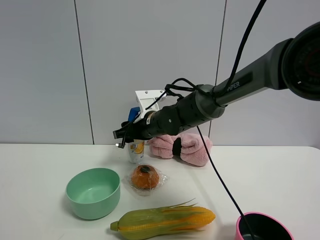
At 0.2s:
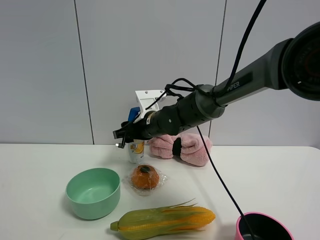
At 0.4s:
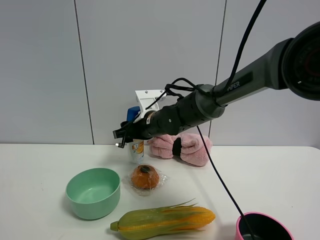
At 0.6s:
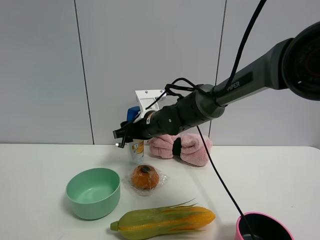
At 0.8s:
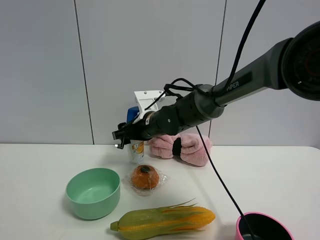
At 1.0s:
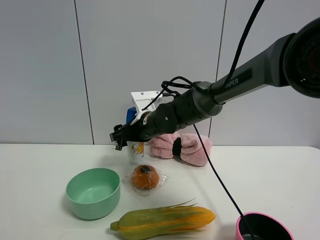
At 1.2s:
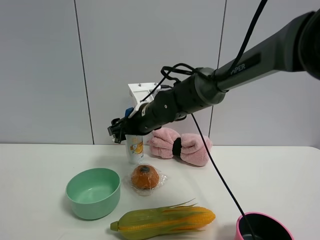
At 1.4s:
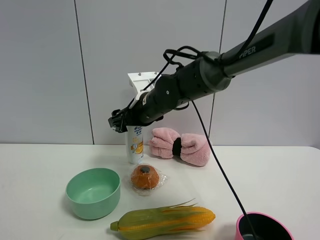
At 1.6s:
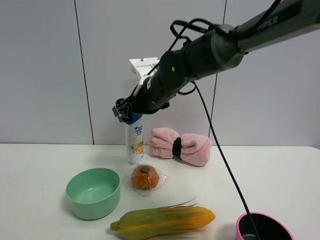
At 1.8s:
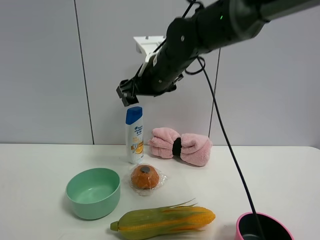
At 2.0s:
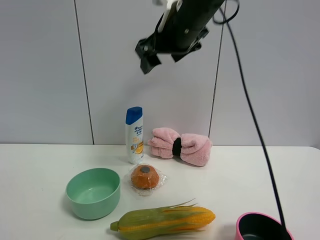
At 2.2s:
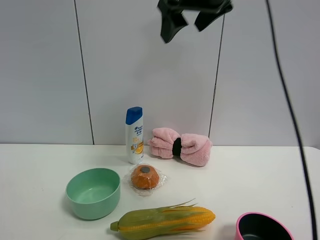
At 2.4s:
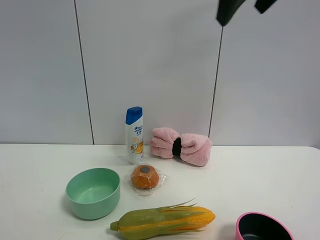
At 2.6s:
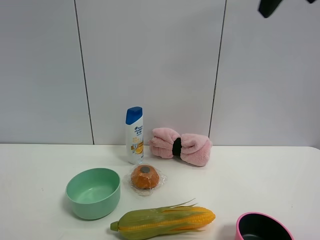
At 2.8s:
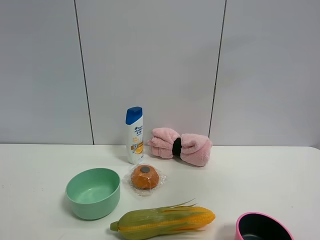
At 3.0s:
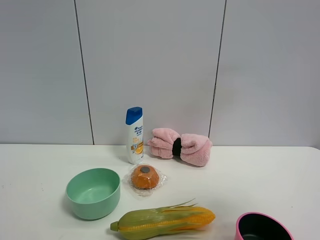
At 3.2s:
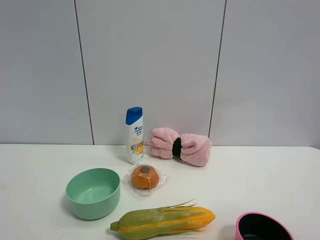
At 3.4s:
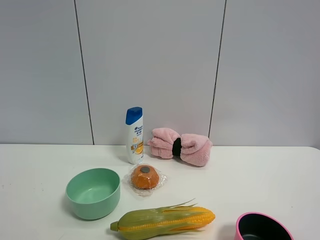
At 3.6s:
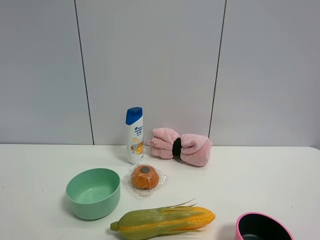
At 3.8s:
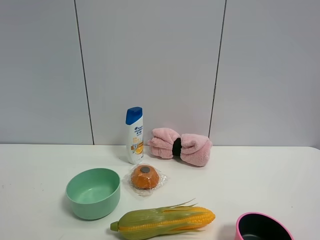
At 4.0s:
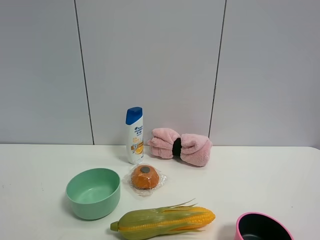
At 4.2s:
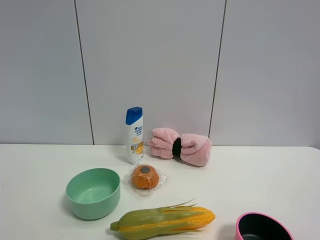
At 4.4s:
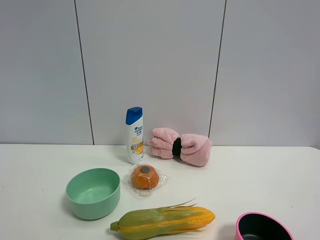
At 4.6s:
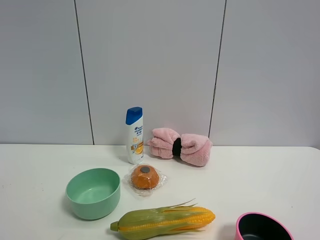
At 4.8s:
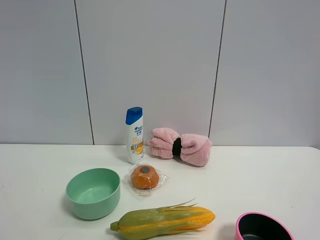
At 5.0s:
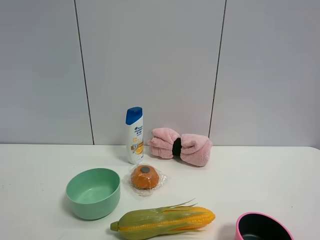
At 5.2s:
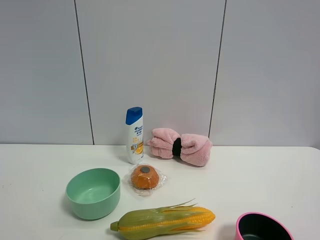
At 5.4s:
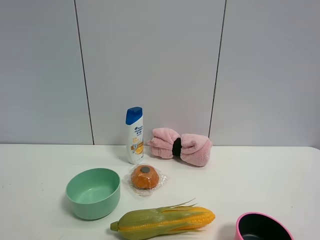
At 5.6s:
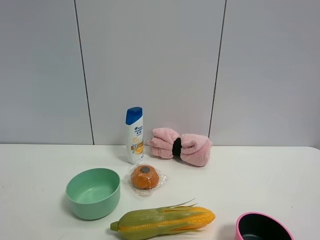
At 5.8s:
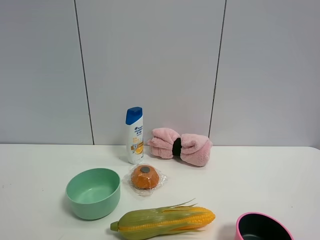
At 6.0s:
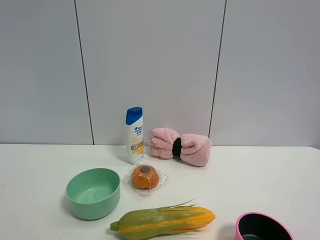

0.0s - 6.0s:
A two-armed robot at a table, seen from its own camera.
Task of the whole recording: the gripper move the object.
0.0s - 1.6s: The right gripper shifts roughly 10 cm upward, and opens up.
1.6s - 3.0s: The right gripper is displaced backward, to the right and upward by approximately 50 cm.
3.0s - 4.4s: The right gripper goes approximately 15 cm backward and downward.
4.4s - 6.0s: The two grippers keep their place.

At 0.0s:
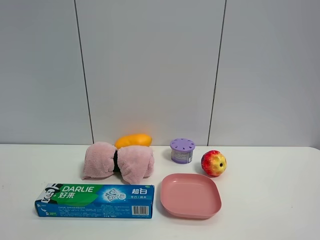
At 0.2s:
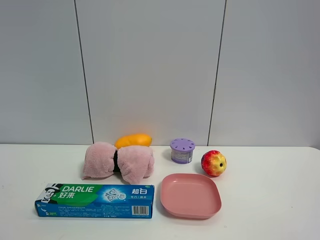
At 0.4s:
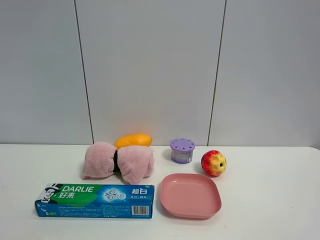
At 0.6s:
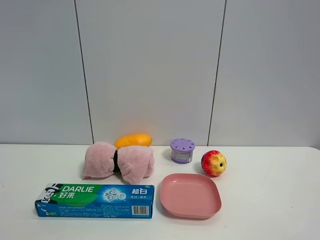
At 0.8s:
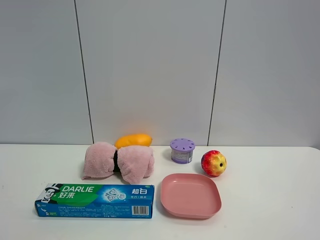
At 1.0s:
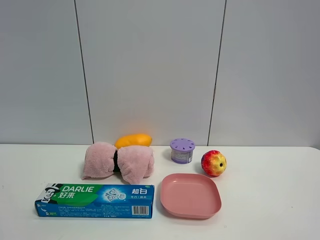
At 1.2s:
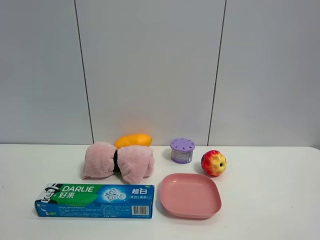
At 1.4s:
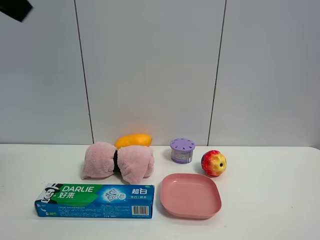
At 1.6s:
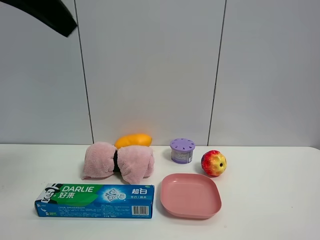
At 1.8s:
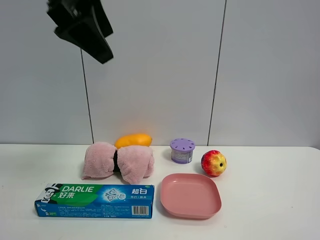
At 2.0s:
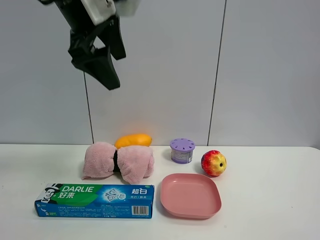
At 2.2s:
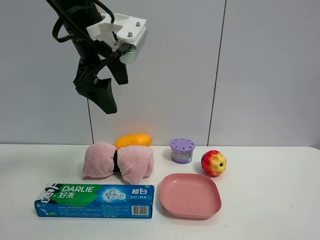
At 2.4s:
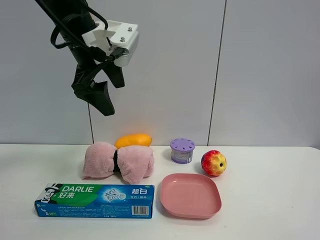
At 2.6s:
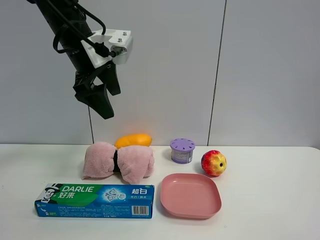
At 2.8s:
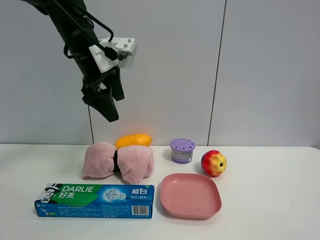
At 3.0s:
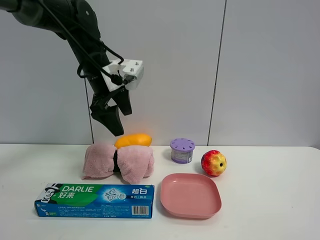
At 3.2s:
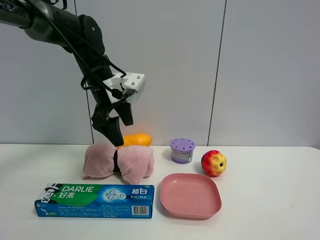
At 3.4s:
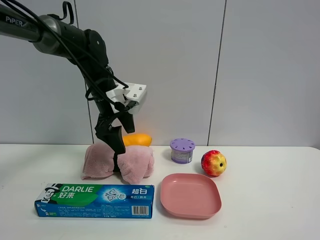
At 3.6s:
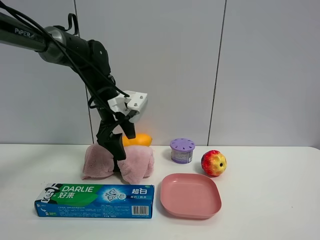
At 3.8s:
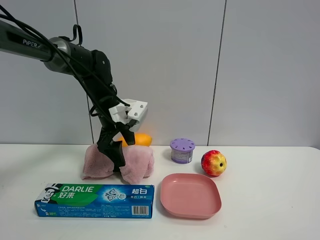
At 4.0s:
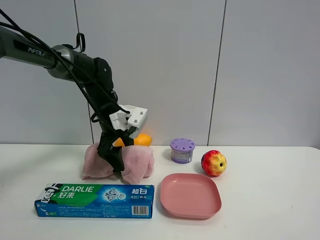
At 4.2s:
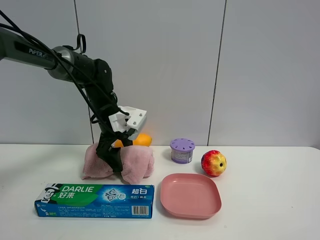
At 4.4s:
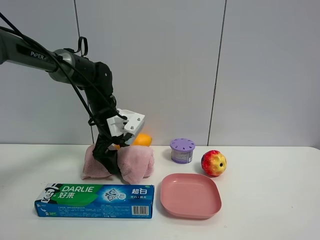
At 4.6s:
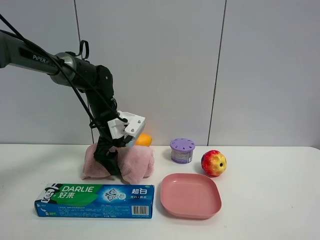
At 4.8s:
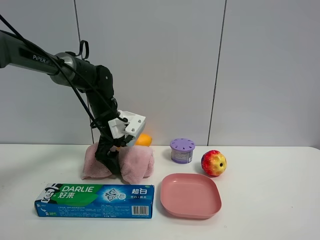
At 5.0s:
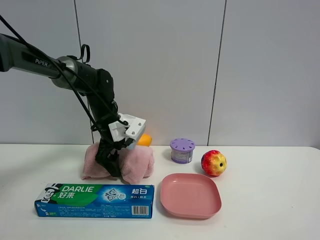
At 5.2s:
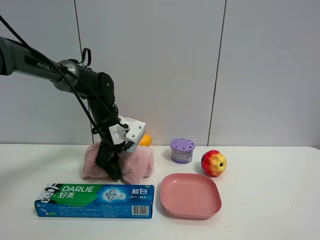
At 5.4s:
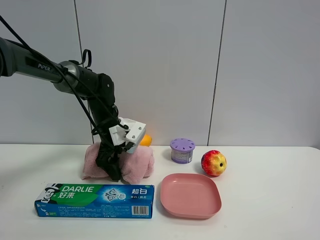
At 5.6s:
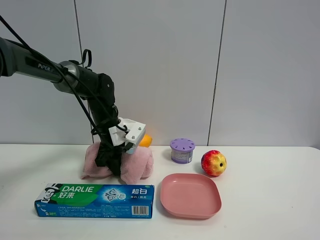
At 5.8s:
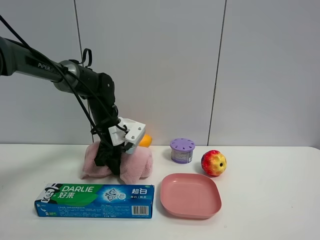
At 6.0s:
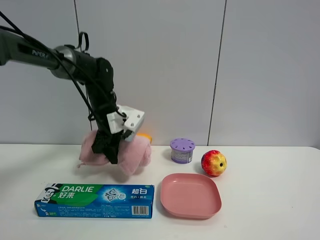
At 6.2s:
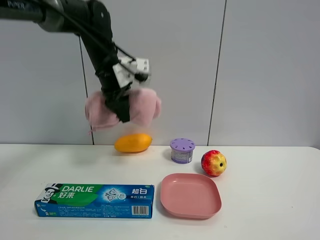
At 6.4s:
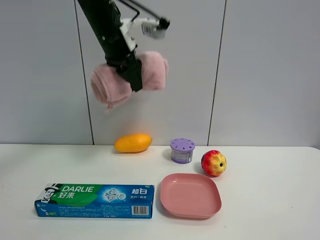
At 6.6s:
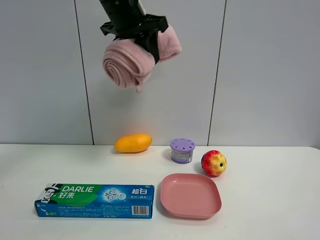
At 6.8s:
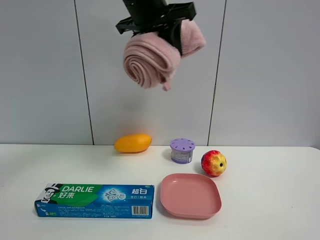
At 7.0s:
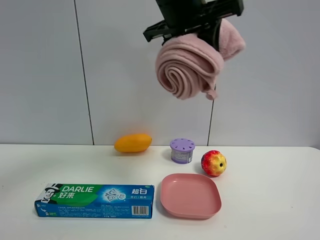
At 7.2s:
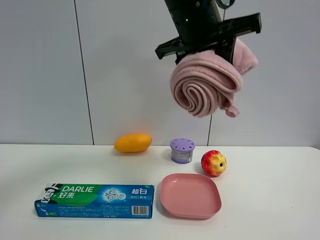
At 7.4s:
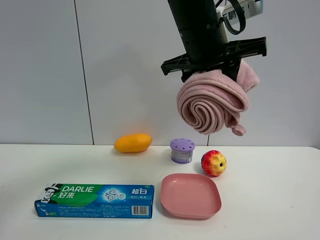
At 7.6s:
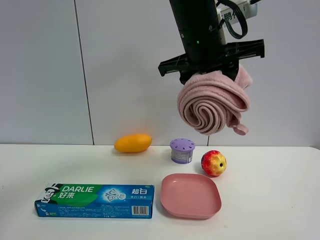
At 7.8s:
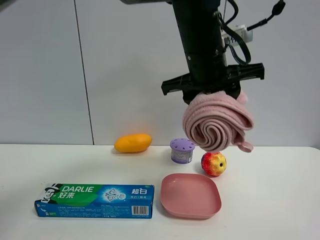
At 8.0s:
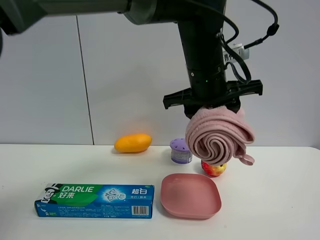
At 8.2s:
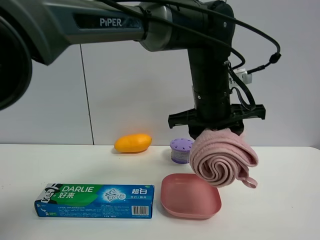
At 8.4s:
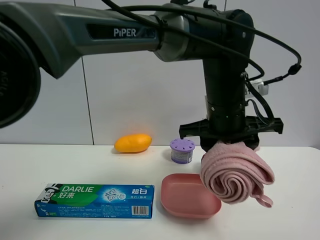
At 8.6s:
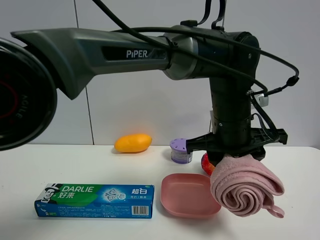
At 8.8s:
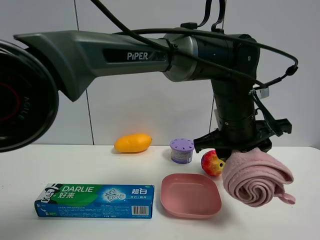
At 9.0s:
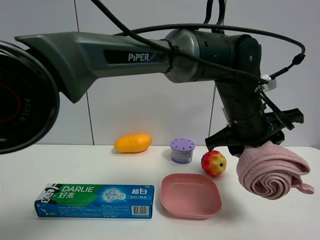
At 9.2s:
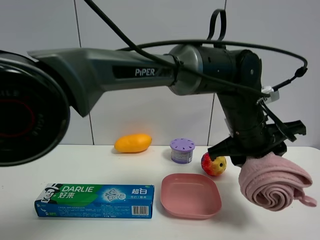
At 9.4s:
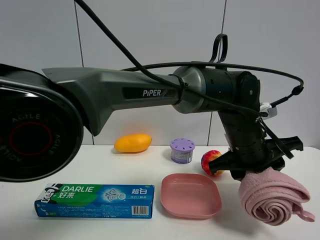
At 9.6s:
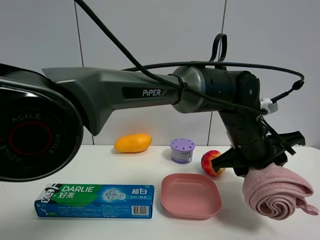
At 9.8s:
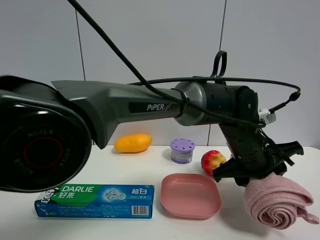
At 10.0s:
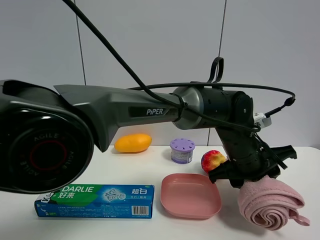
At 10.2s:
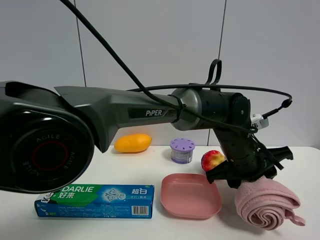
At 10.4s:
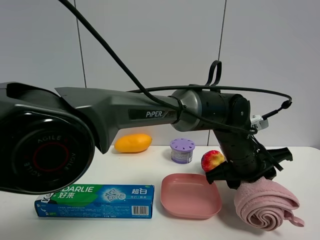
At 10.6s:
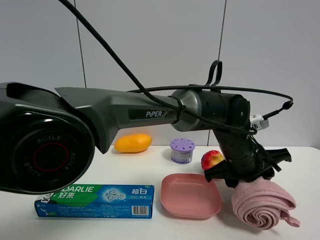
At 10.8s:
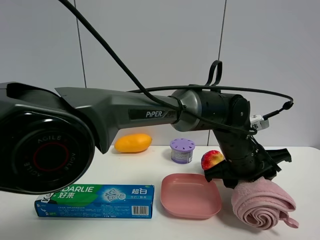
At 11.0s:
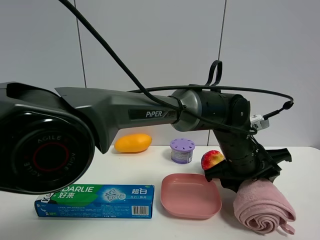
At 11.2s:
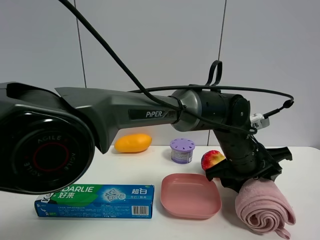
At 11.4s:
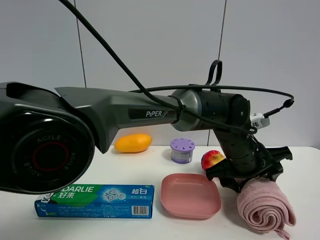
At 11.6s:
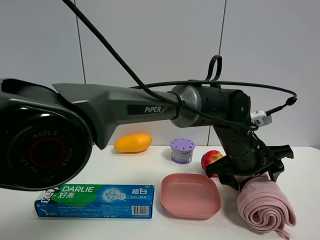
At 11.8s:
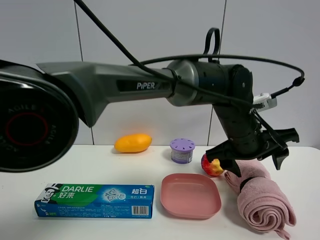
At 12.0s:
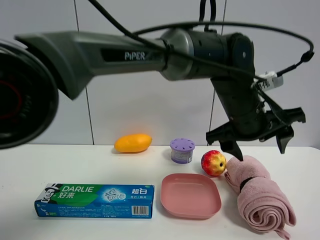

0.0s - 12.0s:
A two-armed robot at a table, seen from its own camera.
Task of the whole recording: the gripper move the object.
Step, 0.0s - 5.6s: Grasp the pink towel with the left gripper.
Step, 5.8s - 12.0s: Place the pink towel on the table with the left gripper.
0.0s - 1.6s: The left gripper goes roughly 30 cm forward and upward.
1.6s - 3.0s: The left gripper is displaced downward and forward by about 25 cm.
3.0s - 4.4s: The left gripper goes about 10 cm downward.
4.4s - 6.0s: The left gripper closes its fingers.
6.0s - 7.6s: The left gripper travels to the right, upward and backward by approximately 30 cm.
7.6s - 9.0s: The left gripper moves downward and to the right, approximately 15 cm.
9.0s - 10.4s: The left gripper moves downward, approximately 10 cm.
10.4s - 12.0s: The left gripper moves upward, some 10 cm, and opens up.

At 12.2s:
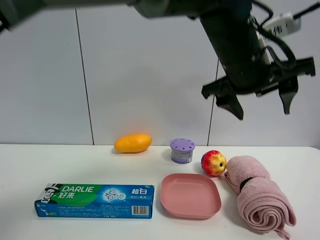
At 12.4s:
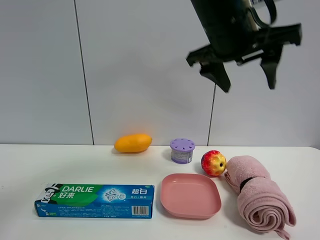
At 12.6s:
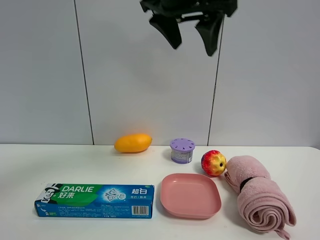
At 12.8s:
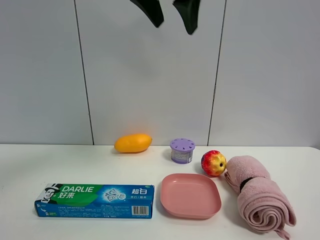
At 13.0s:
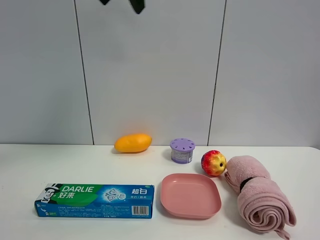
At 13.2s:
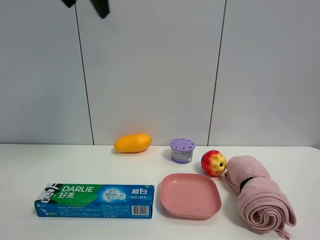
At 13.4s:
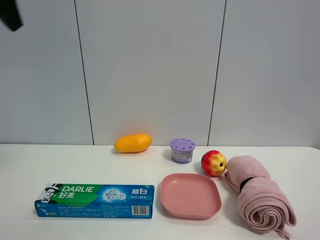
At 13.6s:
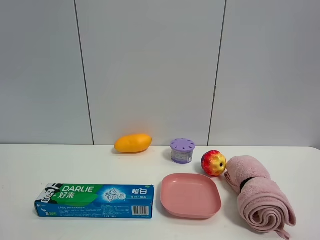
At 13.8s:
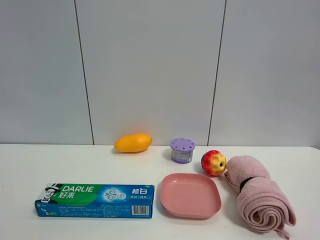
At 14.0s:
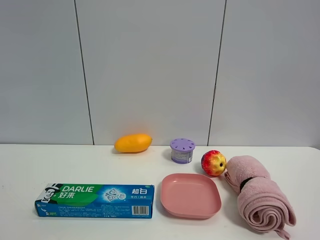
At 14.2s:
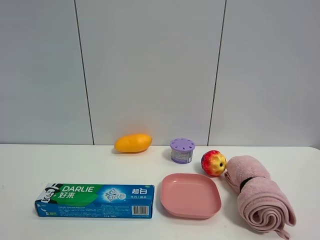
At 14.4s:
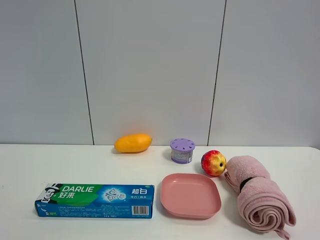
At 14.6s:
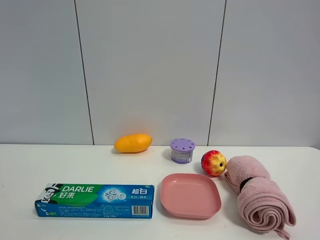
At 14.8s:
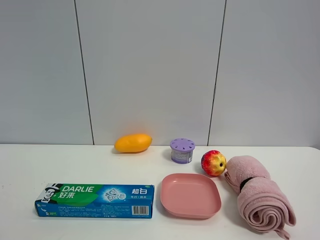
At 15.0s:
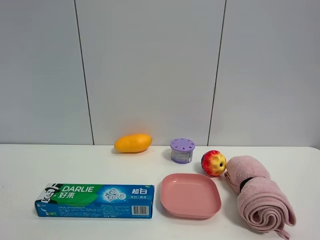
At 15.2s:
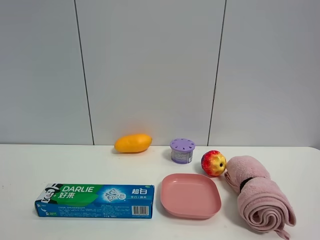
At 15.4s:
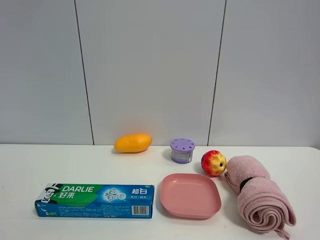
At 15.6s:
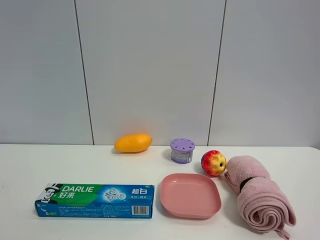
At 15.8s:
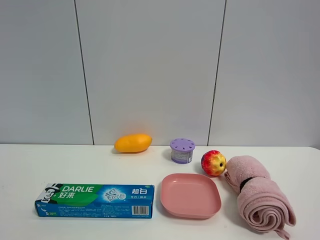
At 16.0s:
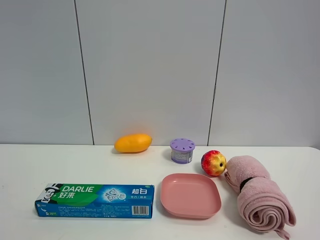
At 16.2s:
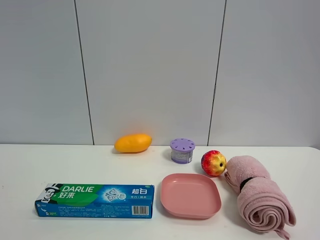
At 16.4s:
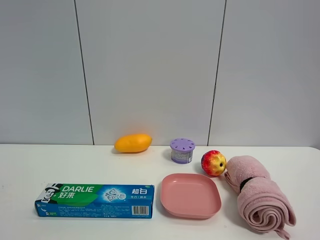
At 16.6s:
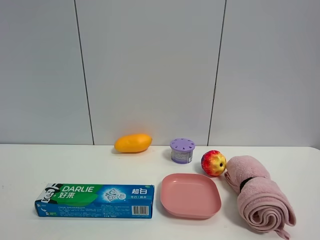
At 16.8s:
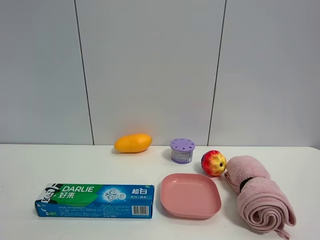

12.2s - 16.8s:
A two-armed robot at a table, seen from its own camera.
Task of the whole recording: the gripper move the object.
12.2s - 13.8s: The left gripper heads to the left and backward, covering roughly 50 cm, and opens.
